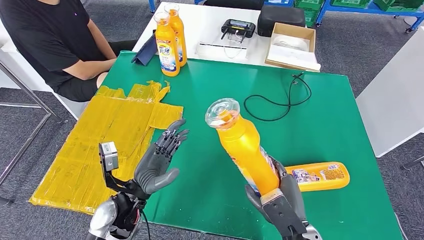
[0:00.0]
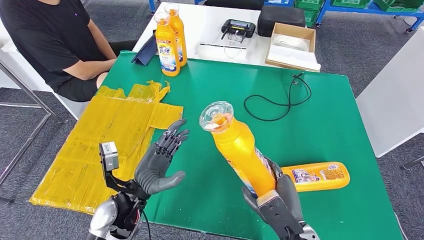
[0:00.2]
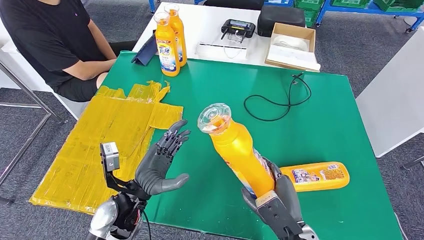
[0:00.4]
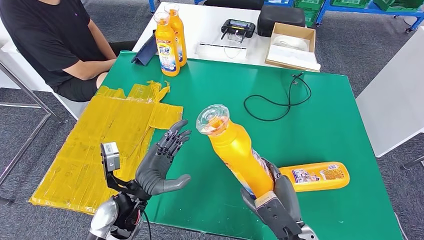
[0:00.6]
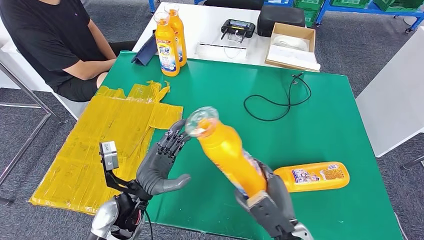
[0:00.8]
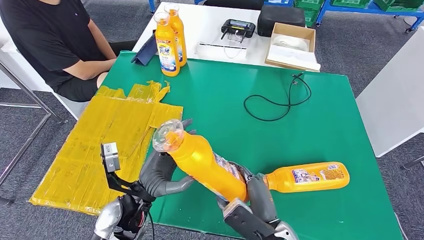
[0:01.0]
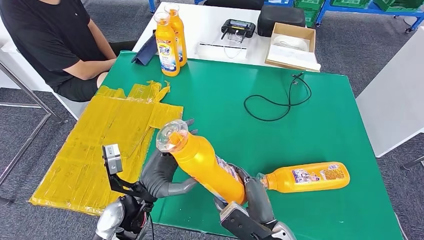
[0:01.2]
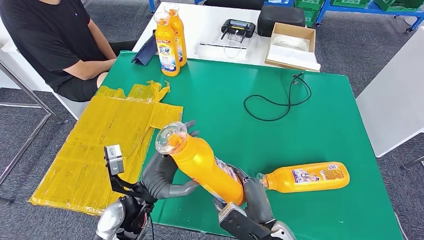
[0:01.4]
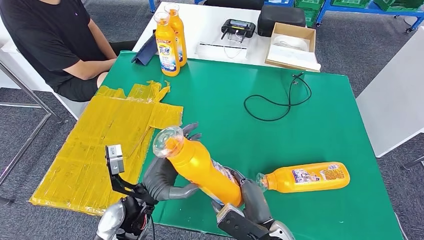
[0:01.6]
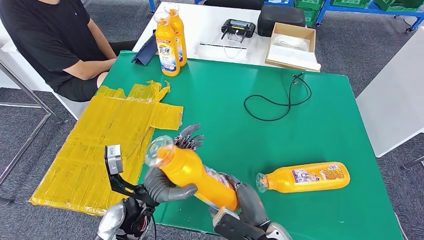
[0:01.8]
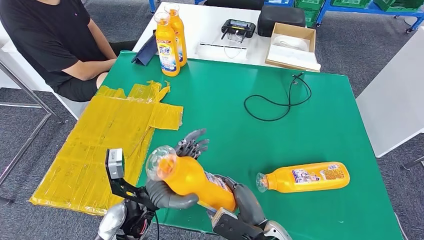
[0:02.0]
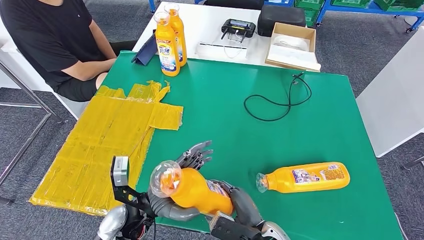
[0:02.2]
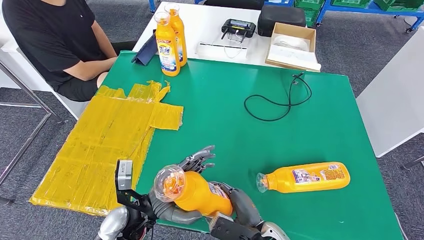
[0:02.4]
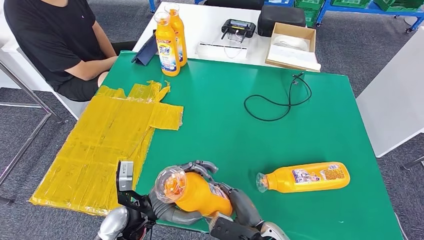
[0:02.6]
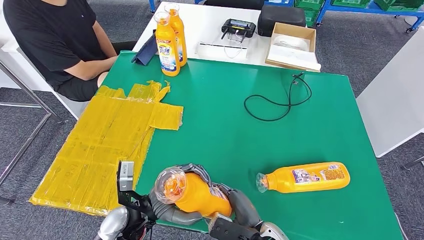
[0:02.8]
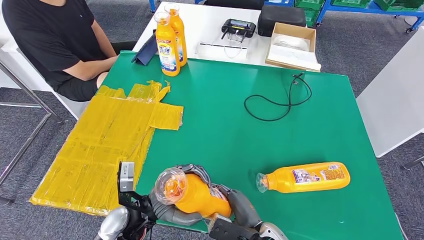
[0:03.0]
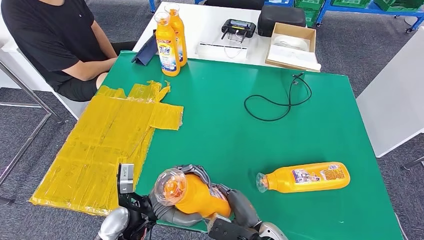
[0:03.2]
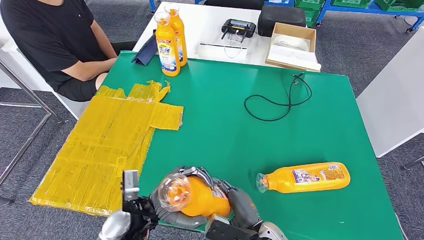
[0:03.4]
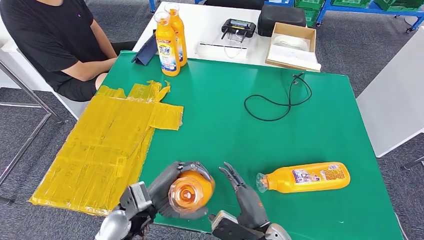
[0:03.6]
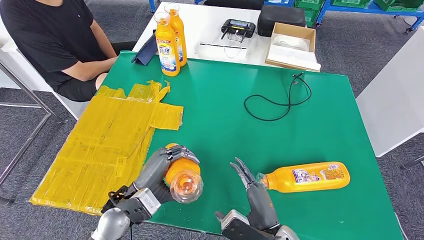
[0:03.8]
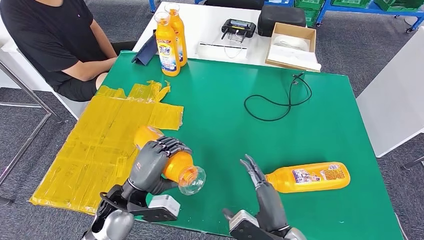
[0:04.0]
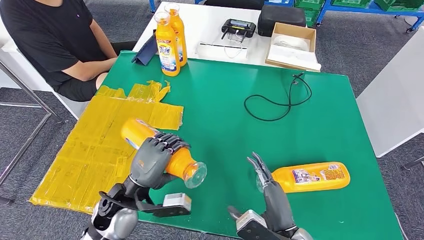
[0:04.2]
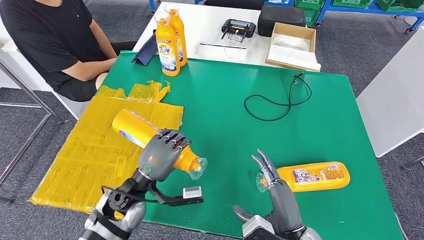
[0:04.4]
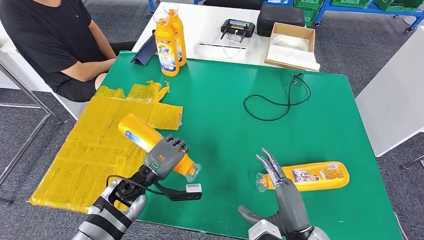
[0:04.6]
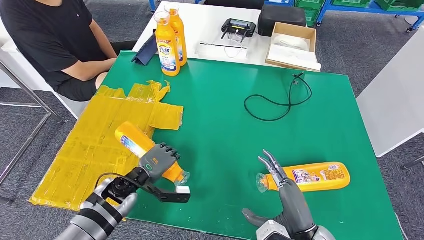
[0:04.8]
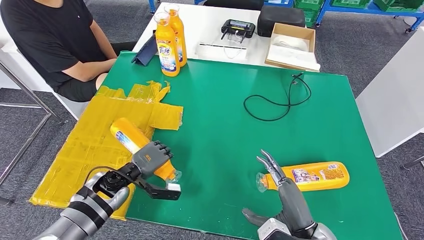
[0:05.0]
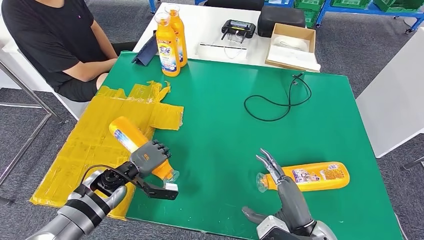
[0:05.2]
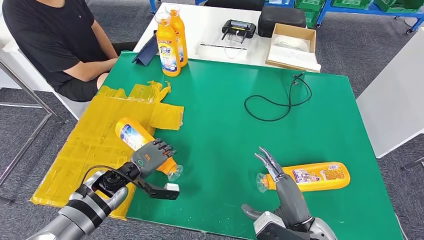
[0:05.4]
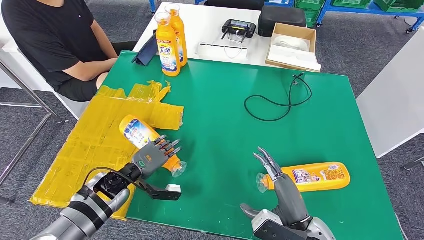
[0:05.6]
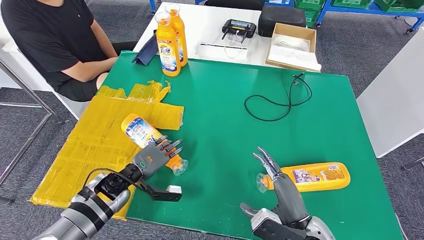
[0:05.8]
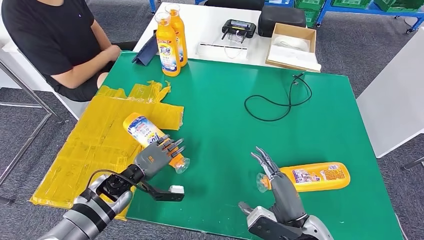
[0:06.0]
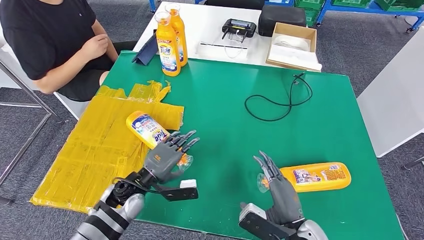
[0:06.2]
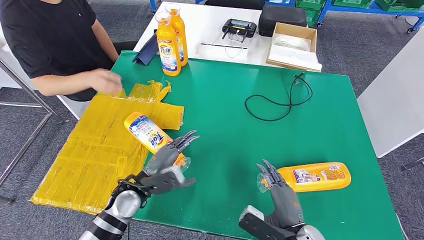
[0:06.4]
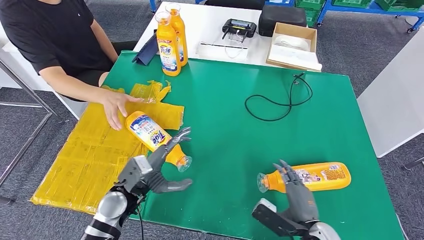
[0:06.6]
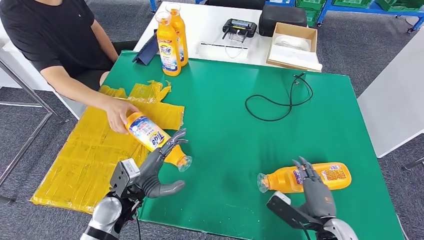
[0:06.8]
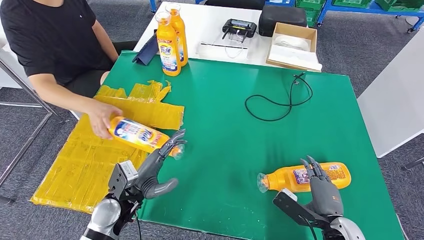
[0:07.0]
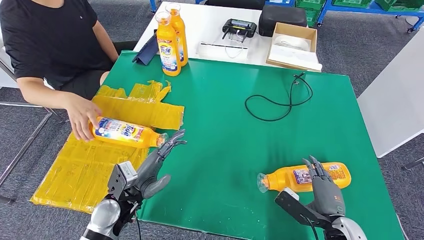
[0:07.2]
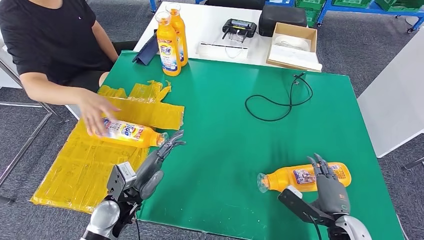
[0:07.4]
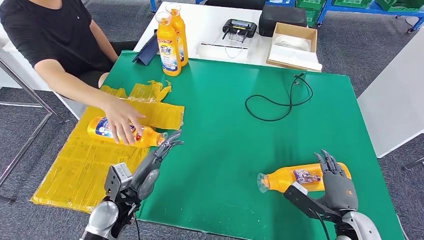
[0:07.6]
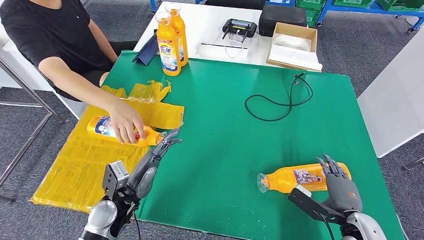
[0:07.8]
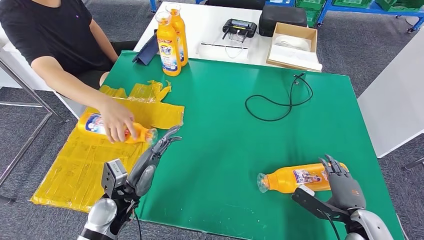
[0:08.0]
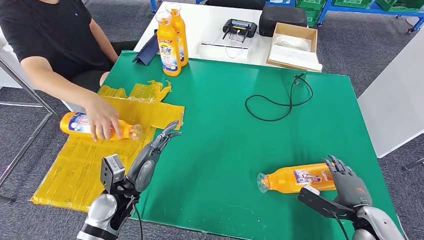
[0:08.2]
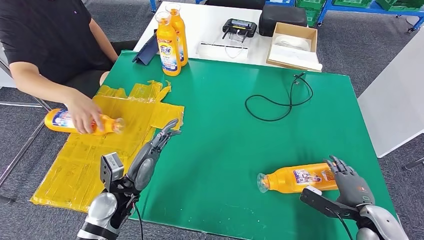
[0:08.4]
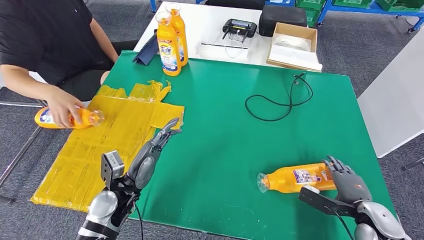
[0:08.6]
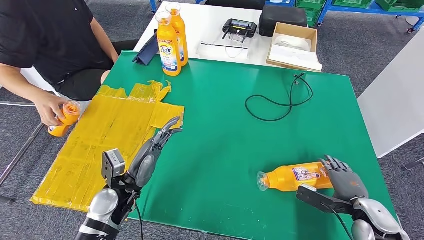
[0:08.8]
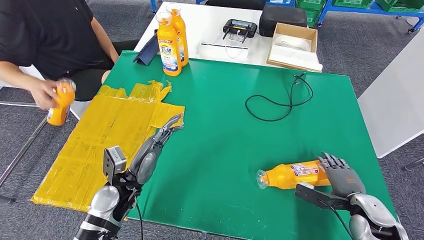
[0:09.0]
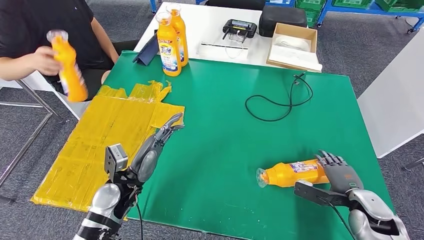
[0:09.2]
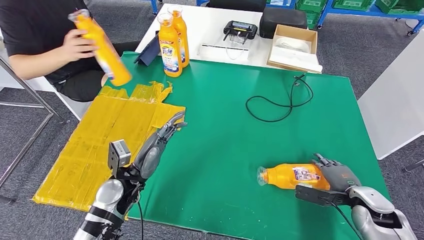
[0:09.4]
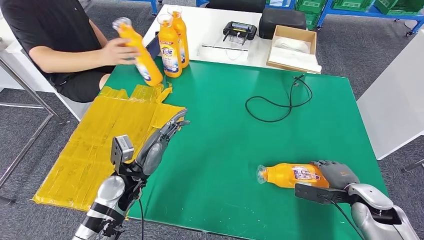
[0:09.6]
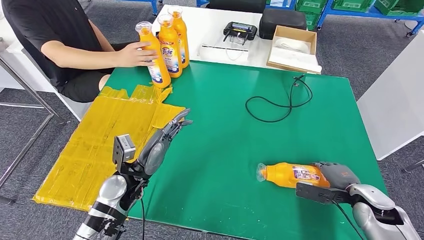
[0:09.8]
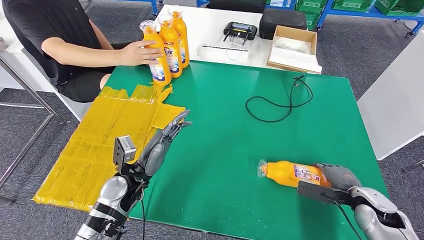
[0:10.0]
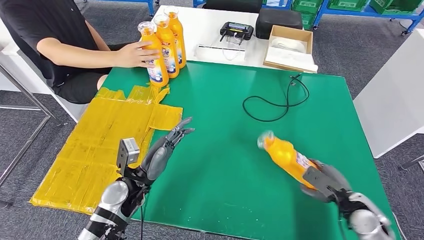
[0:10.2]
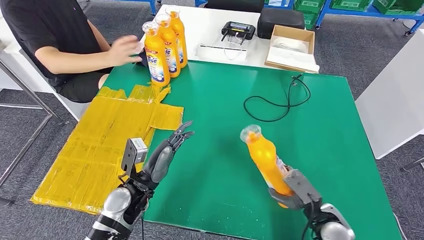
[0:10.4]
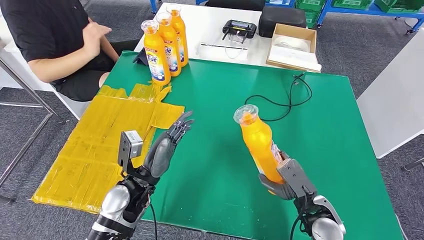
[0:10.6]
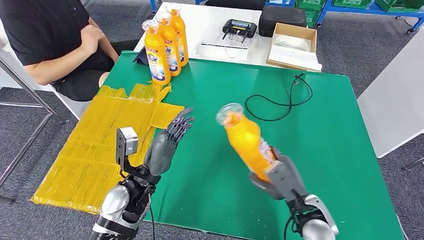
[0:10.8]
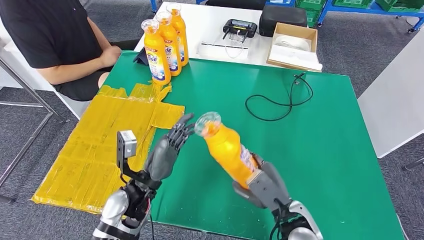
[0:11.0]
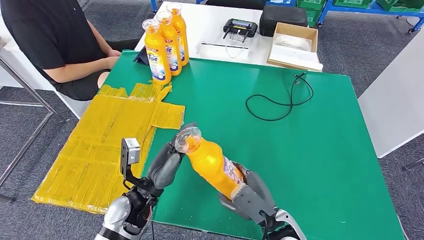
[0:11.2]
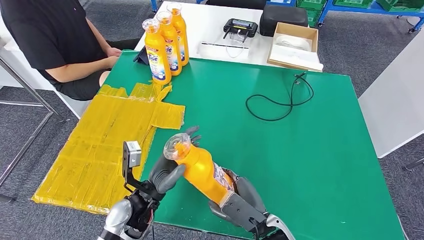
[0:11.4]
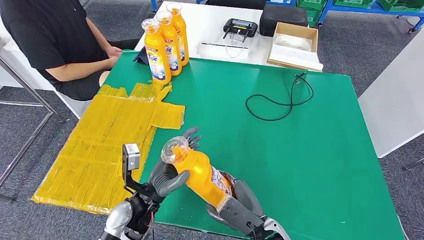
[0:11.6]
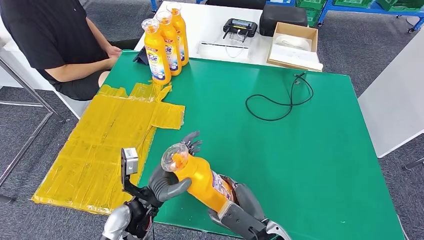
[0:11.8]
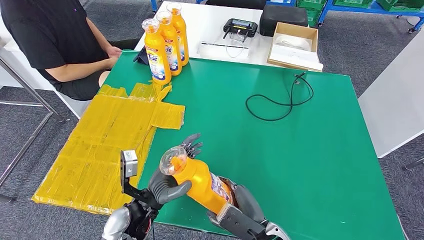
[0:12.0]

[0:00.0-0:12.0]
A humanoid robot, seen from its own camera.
Step, 0:01.0 to 0:08.2: Flip the fast-moving consumer goods bottle to the front side.
0:00.0 to 0:01.6: The right hand changes place by about 5 cm.
0:01.6 to 0:03.0: The hands stay close to where they were, moving slightly.
0:03.0 to 0:04.4: The right hand goes approximately 10 cm upward and to the right; the left hand shifts by some 5 cm.
0:04.4 to 0:06.0: The left hand shifts about 10 cm downward and to the left.
0:06.0 to 0:07.6: The left hand moves backward, roughly 5 cm; the right hand heads to the right, covering approximately 10 cm.
0:07.6 to 0:09.0: The right hand moves to the right and forward, approximately 10 cm.

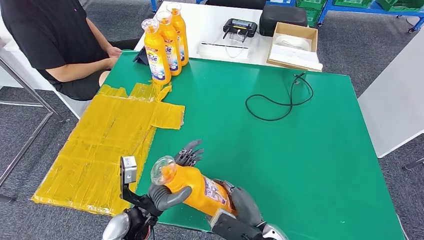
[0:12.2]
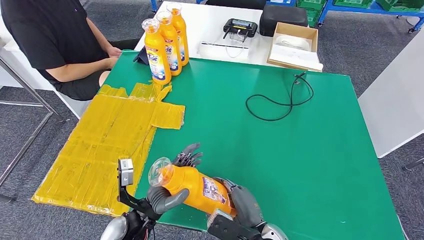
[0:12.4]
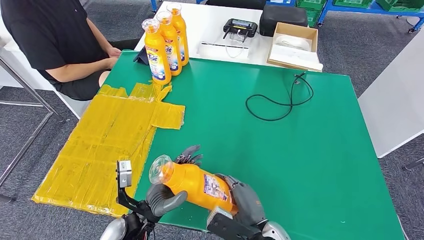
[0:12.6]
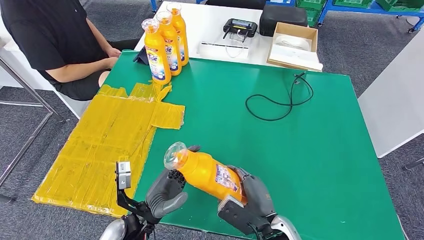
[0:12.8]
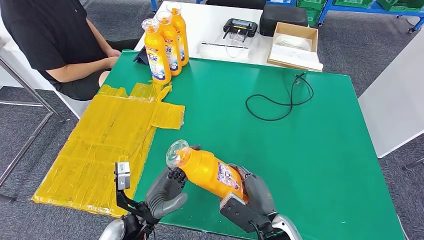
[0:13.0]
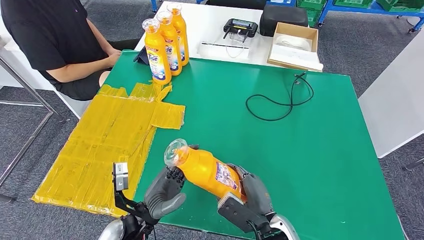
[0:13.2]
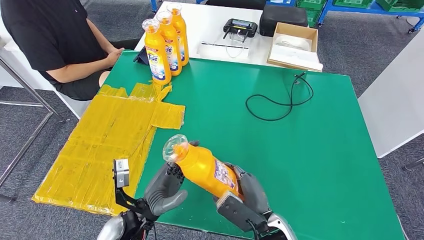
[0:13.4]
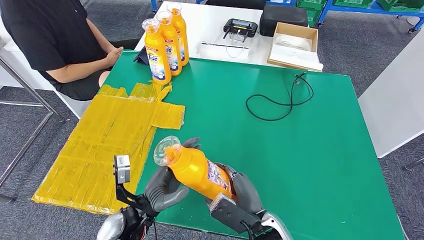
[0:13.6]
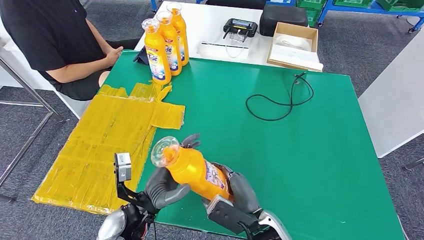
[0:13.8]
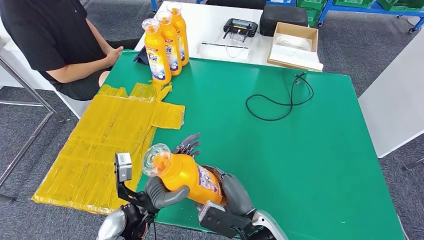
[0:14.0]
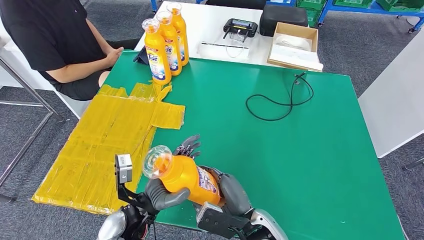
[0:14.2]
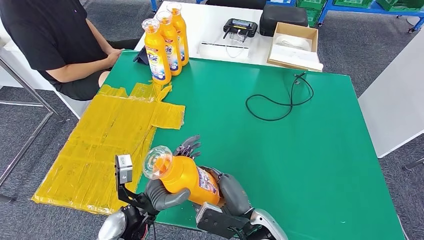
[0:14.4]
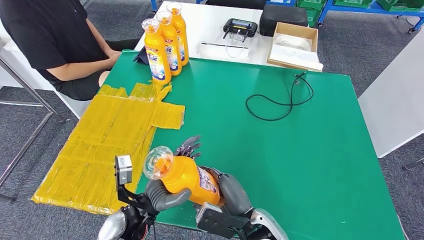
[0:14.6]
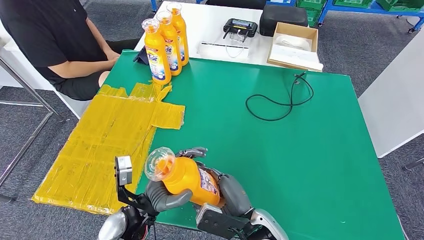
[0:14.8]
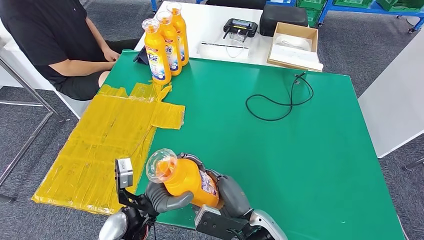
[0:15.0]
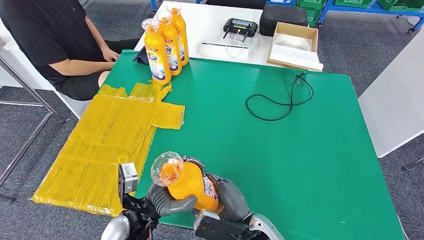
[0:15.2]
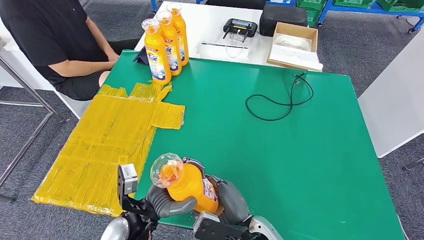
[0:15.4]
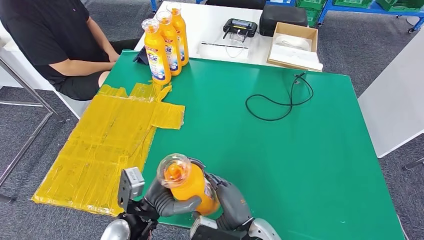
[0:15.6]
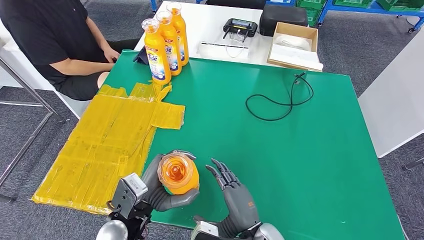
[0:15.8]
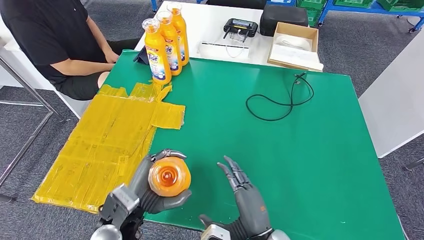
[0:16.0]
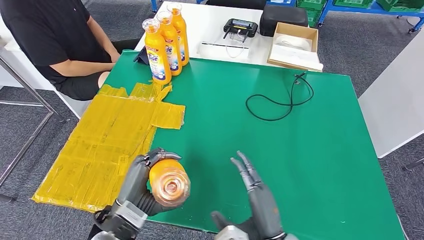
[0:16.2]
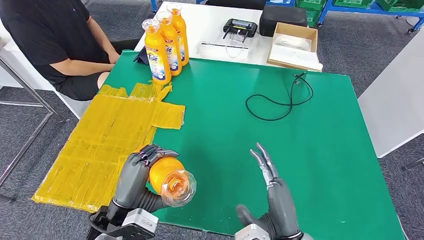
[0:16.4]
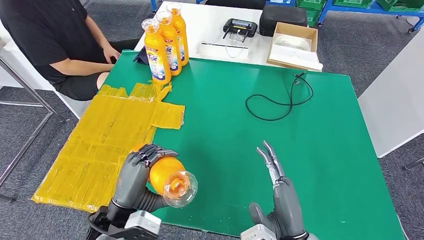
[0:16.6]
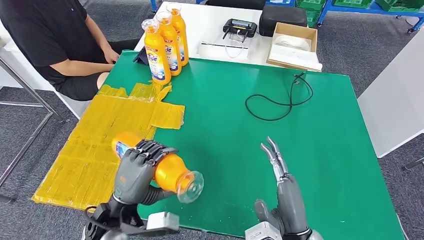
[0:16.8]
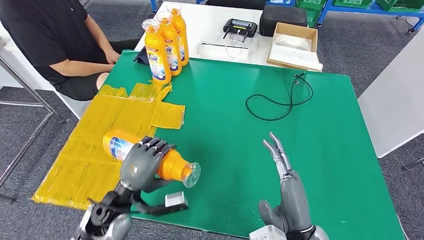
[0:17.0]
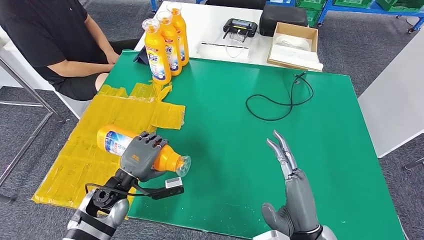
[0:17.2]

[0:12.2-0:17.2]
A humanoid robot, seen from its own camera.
0:12.2 to 0:15.6: The hands make only small movements.
0:15.6 to 0:17.2: The left hand shifts about 10 cm to the left and forward, while the right hand shifts some 10 cm to the right and upward.
